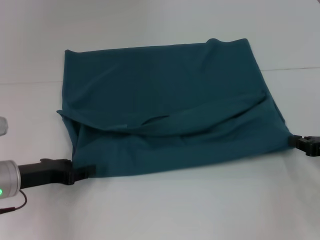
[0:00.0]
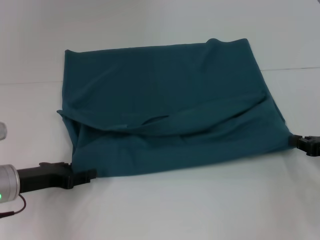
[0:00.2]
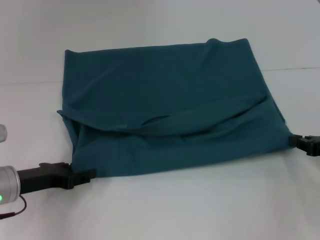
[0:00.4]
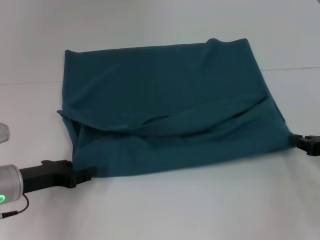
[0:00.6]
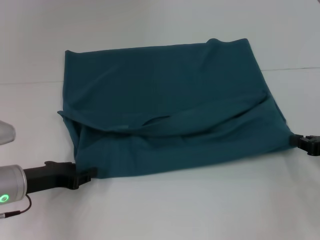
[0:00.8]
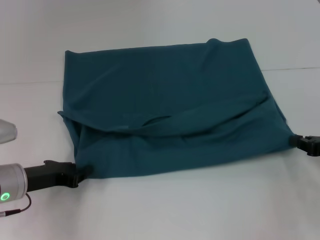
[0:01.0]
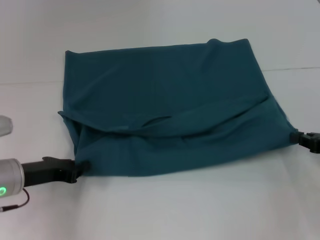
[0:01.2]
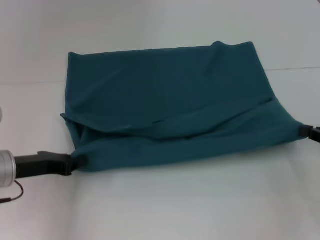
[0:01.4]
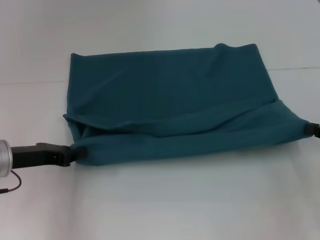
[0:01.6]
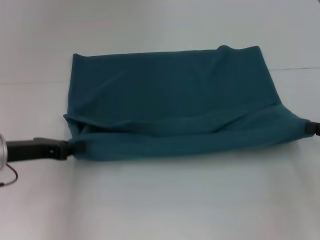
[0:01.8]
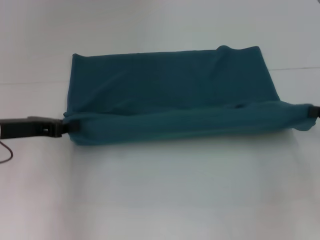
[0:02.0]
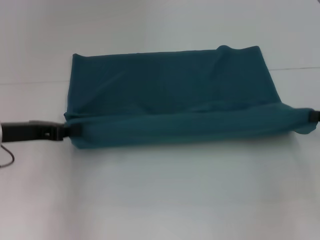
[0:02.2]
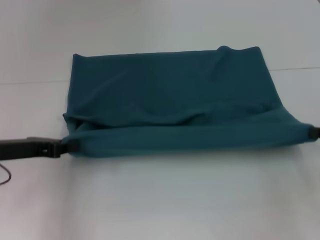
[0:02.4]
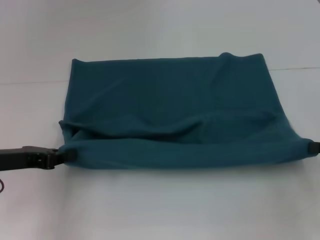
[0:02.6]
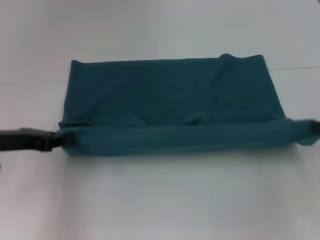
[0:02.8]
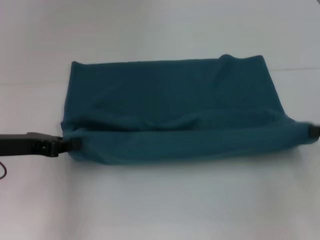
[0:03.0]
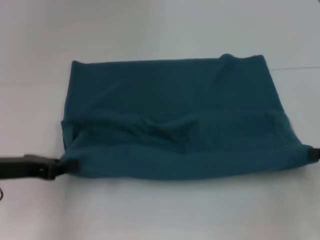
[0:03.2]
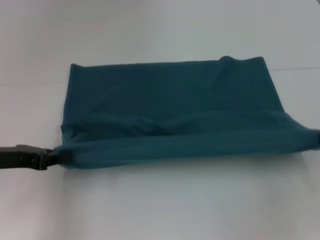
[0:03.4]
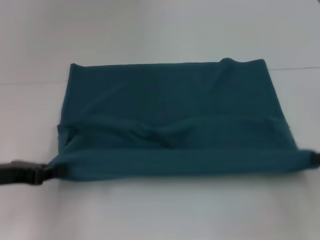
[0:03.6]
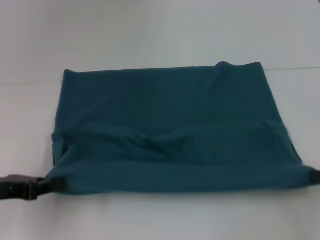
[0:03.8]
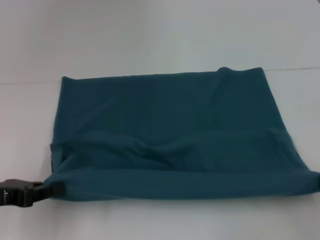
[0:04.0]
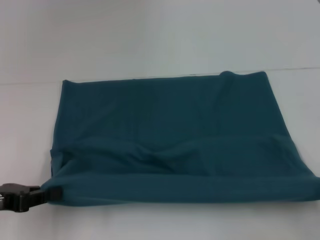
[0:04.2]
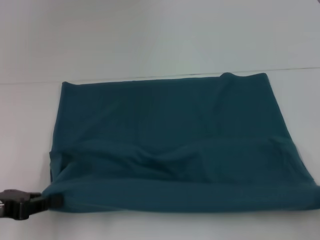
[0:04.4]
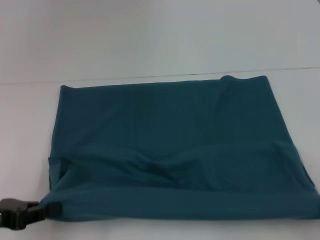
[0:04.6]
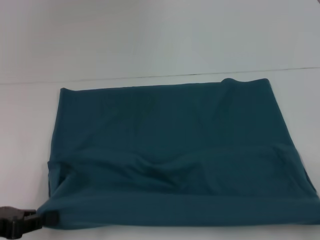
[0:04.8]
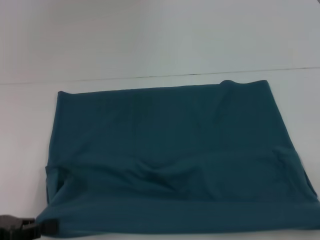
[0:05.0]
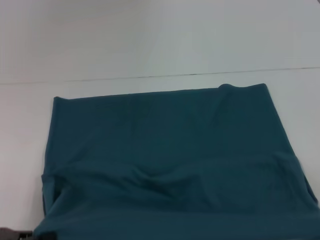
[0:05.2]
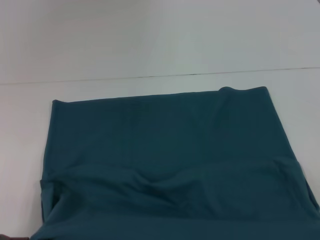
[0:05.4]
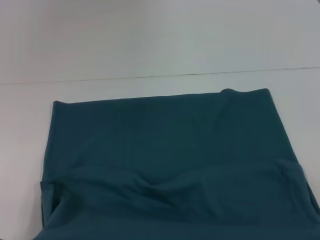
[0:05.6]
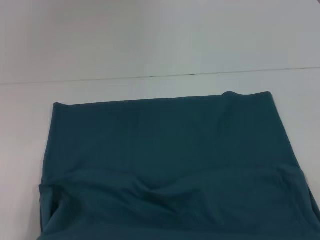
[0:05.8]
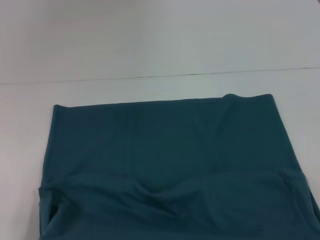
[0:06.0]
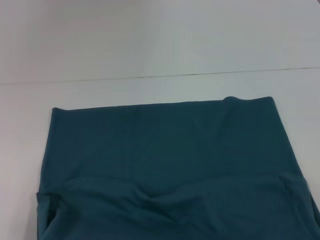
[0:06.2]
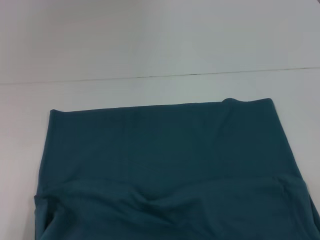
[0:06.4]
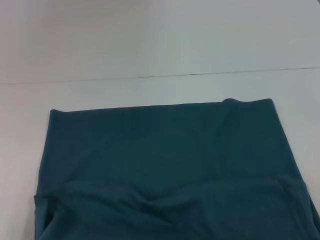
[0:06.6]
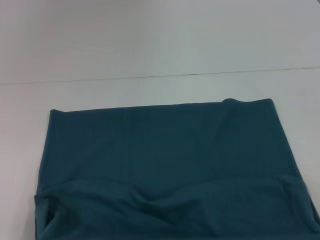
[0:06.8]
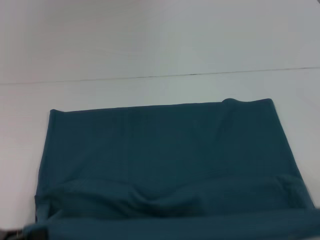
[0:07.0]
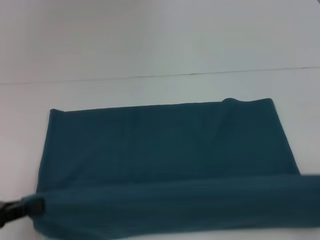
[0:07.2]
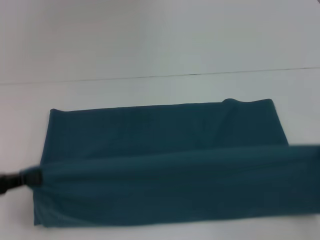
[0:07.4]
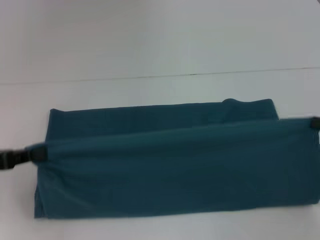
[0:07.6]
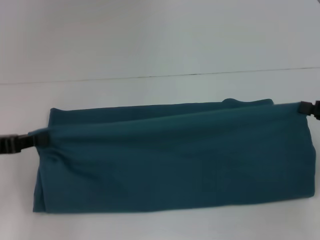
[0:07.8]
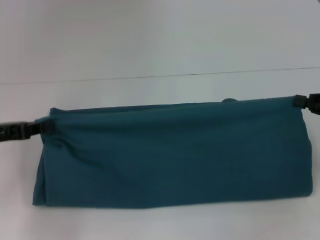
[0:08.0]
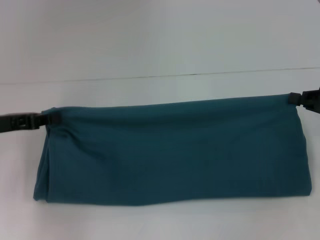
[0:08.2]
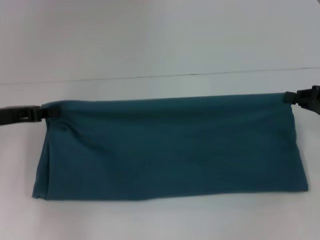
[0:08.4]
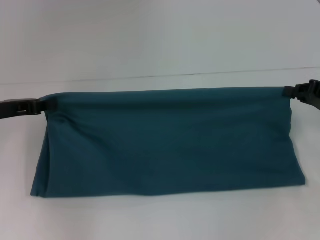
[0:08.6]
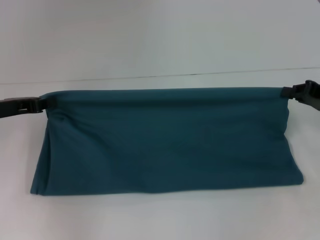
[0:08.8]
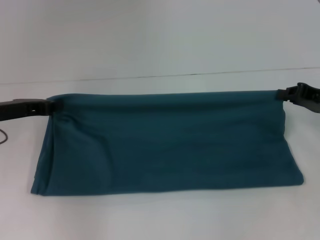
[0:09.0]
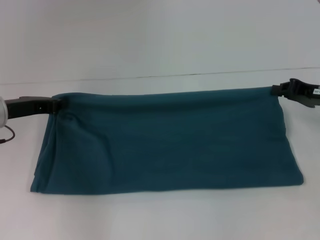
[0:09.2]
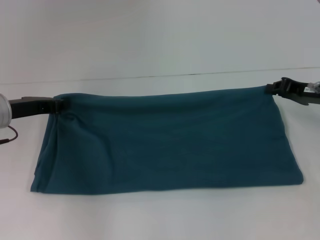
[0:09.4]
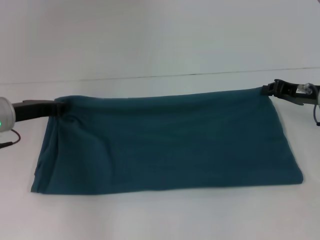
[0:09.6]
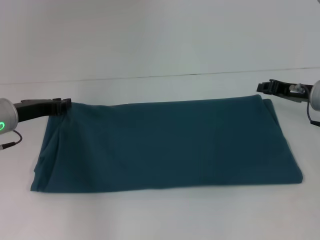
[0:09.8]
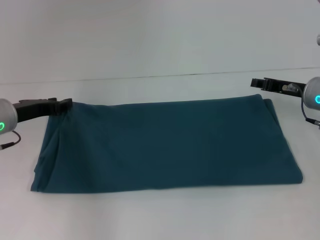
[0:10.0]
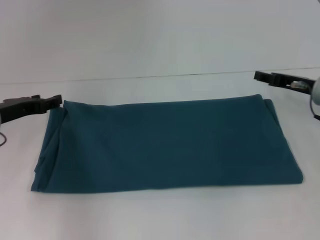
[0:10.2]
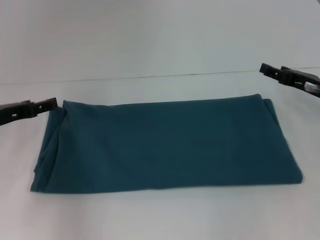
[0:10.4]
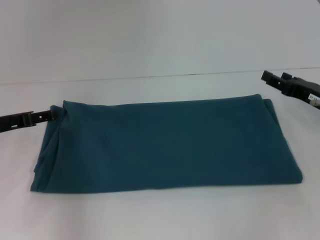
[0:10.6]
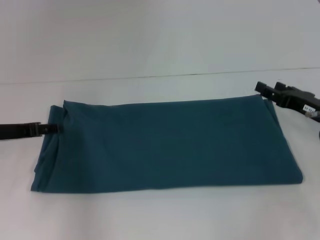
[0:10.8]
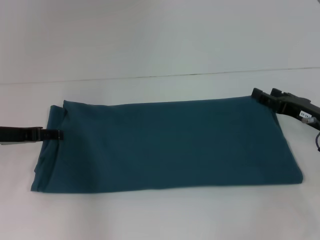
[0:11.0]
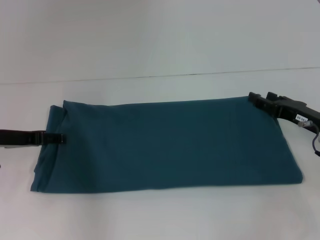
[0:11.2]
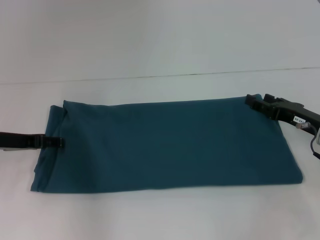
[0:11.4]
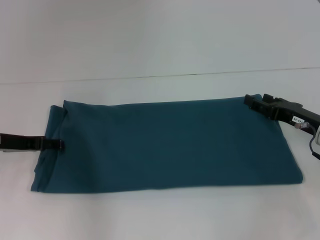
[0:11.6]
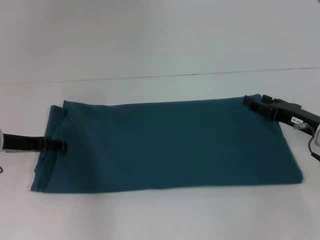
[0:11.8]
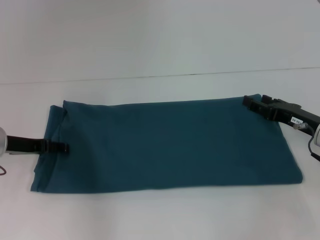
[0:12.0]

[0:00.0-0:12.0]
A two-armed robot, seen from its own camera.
Step, 0:00.0 to 0:04.6: Pull the clothes with your left hand.
Step, 0:00.0 to 0:04.6: Pull the clothes with your right hand.
Step, 0:04.8 to 0:10.4: Fold the clothes to the left.
Step, 0:04.8 to 0:10.4: Fold the clothes to the right.
0:00.0 to 0:01.6: The left gripper opens, then closes again.
0:01.6 to 0:03.0: The grippers make only small movements.
0:03.0 to 0:04.4: The two grippers go approximately 10 cm backward.
0:04.4 to 0:06.0: The grippers both shift backward by roughly 10 cm.
0:06.0 to 0:07.6: The grippers both shift forward by about 15 cm.
0:07.6 to 0:09.0: The right gripper travels forward by approximately 10 cm. Meanwhile the left gripper shifts approximately 10 cm forward and to the right.
0:09.0 to 0:10.4: The right gripper opens its fingers. Meanwhile the left gripper opens up.
0:10.4 to 0:12.0: The right gripper moves approximately 5 cm.

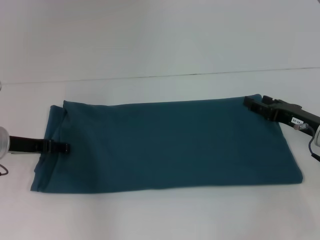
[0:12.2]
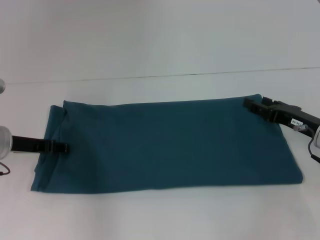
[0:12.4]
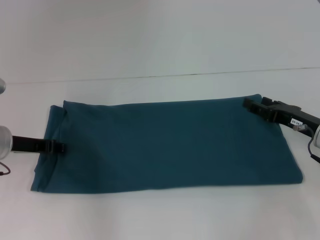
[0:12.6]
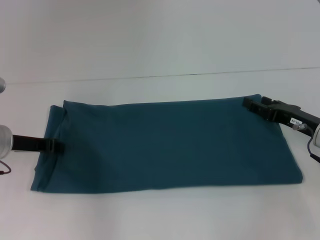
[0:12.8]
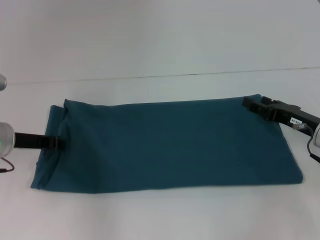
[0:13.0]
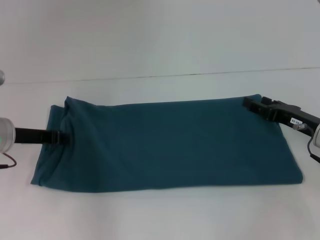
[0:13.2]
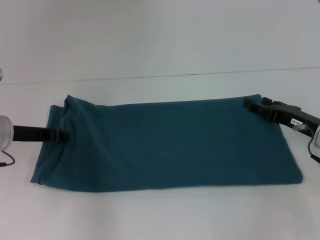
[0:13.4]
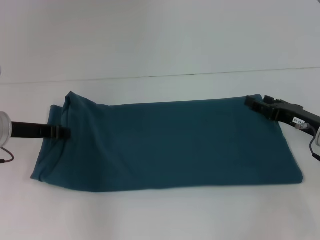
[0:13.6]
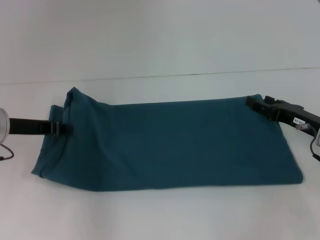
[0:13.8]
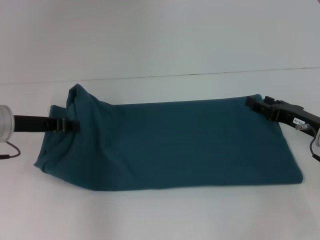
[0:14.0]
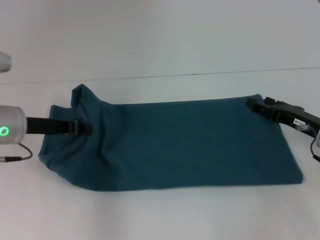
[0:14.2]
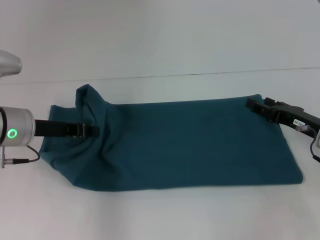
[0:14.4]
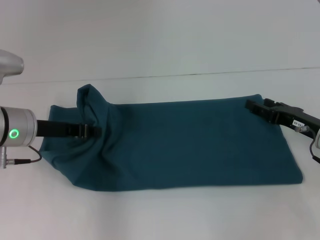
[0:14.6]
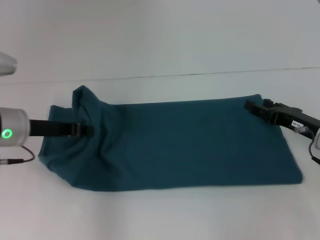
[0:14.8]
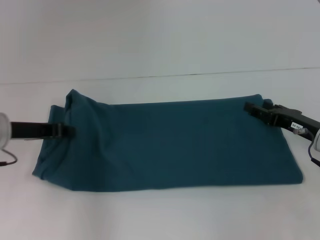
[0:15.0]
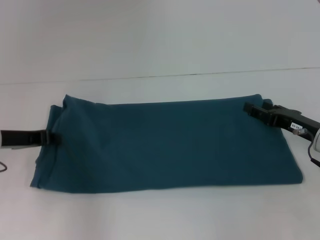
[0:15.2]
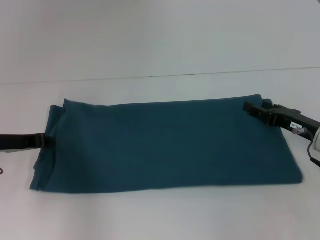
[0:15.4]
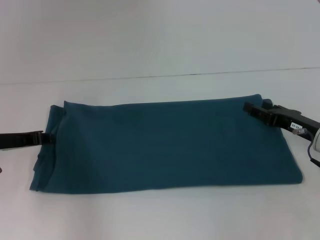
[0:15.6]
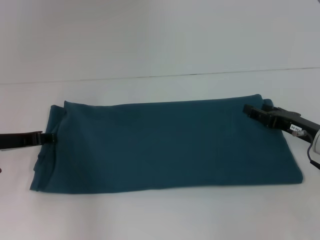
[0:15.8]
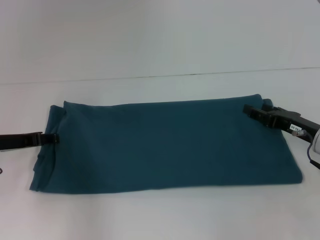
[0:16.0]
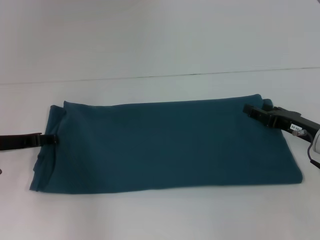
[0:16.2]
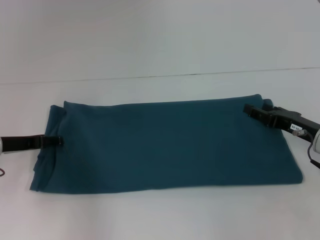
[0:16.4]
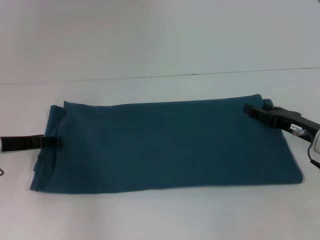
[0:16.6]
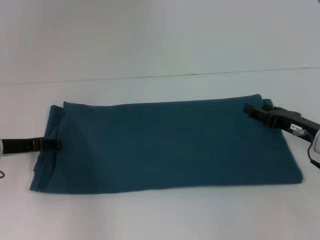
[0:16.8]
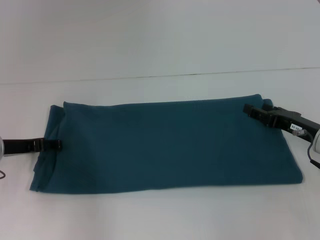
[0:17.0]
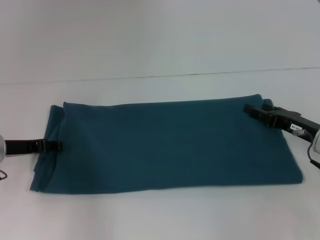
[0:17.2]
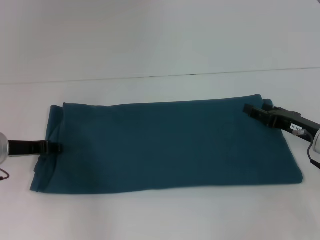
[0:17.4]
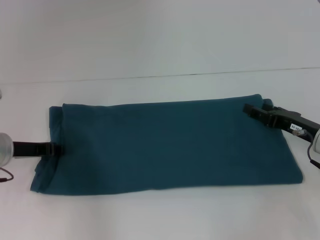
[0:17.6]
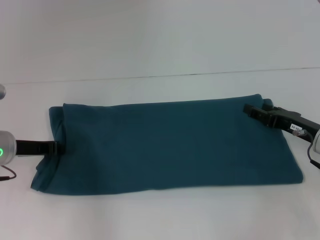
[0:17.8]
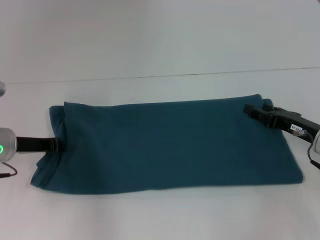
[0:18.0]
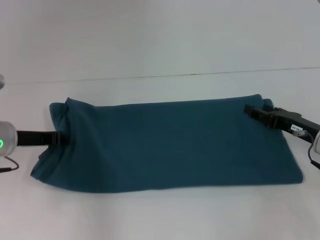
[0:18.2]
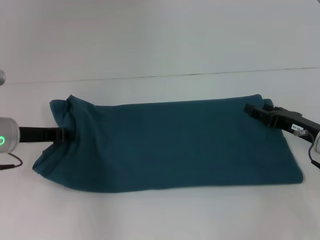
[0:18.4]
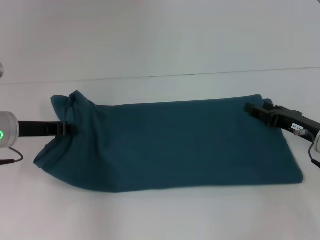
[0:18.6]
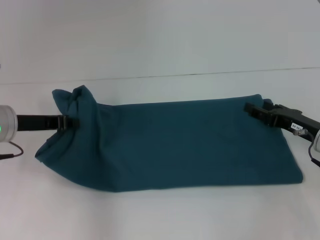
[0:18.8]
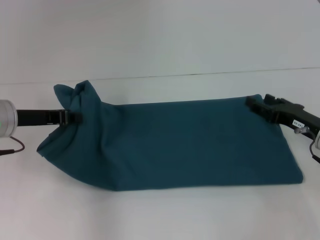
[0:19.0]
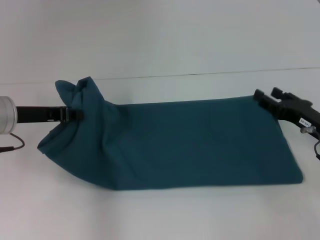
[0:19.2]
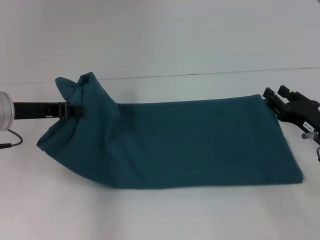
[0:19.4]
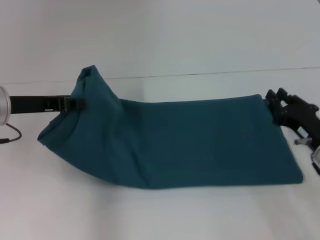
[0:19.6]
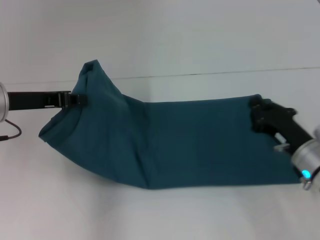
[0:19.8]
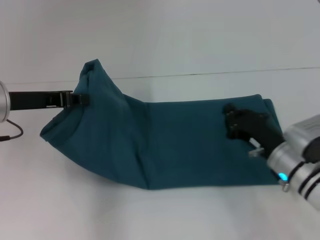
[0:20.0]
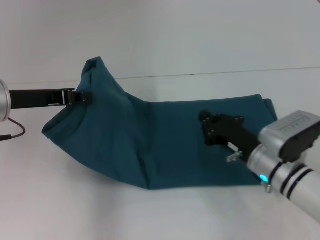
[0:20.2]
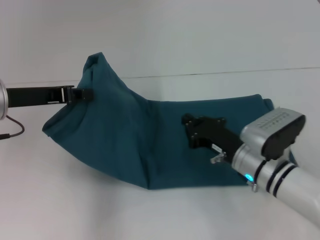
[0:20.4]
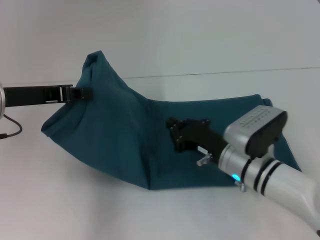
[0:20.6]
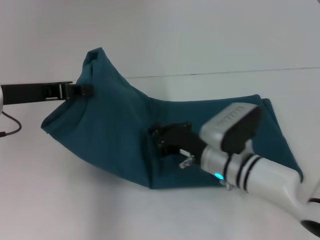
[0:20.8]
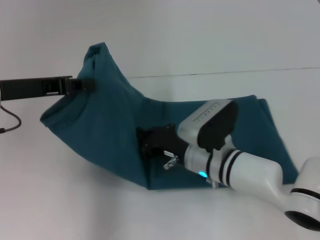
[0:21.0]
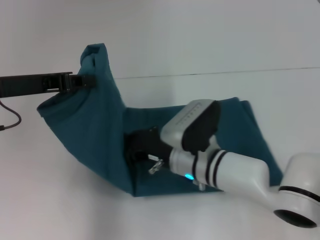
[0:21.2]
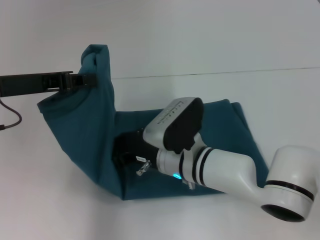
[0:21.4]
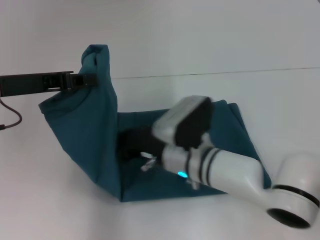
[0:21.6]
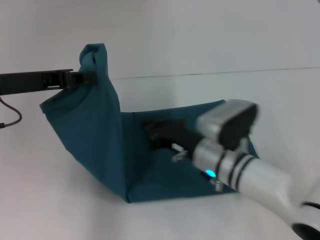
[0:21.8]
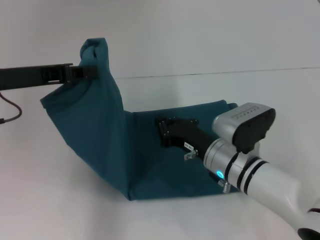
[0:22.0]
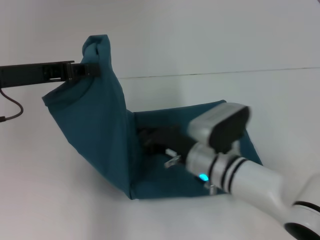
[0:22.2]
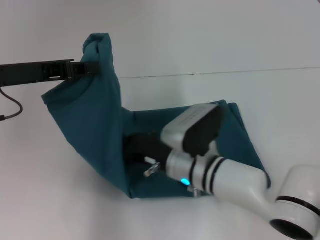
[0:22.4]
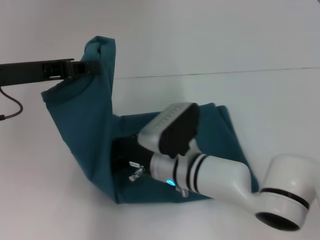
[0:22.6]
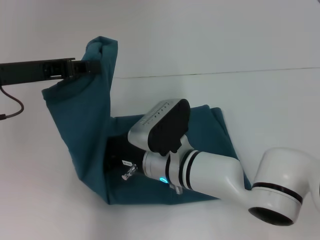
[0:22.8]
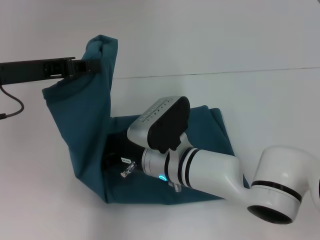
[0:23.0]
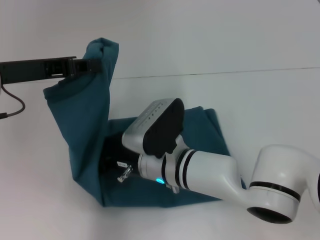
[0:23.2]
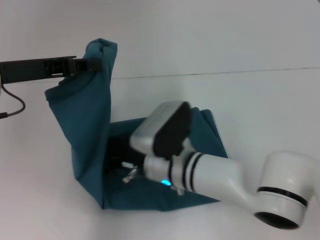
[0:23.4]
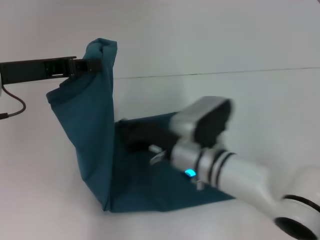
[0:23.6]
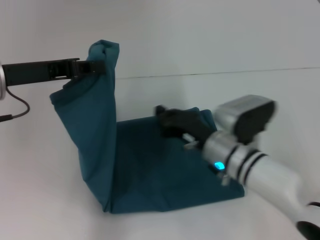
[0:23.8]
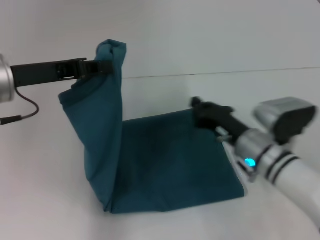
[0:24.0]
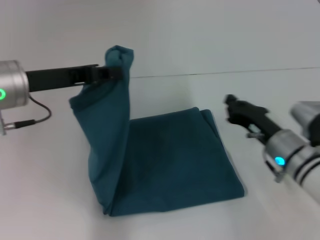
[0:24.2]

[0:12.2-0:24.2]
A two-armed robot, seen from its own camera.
Step, 0:12.2 to 0:23.6: Press the middle of the clothes with your right hand.
0:12.2 to 0:13.8: The left gripper closes up.
0:13.8 to 0:15.2: There are only small adjustments of the grippers.
0:15.2 to 0:16.6: The left gripper opens its fingers.
0:16.6 to 0:18.2: The left gripper closes up.
0:18.2 to 0:19.8: The right gripper ends up some 5 cm from where it was, and closes up, while the left gripper shifts some 10 cm upward.
0:19.8 to 0:21.2: The right gripper travels to the left by some 20 cm.
0:22.6 to 0:24.2: The right gripper goes approximately 15 cm to the right.
